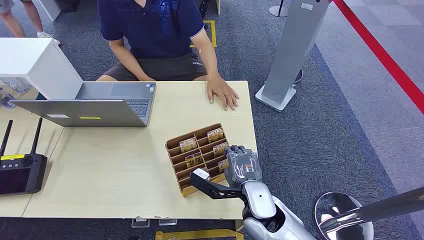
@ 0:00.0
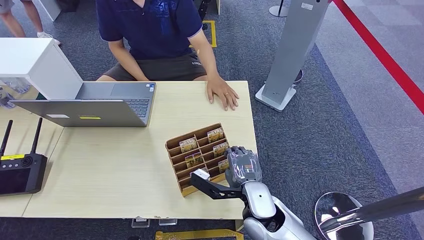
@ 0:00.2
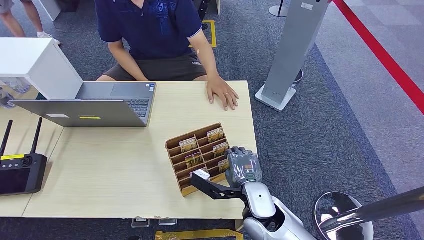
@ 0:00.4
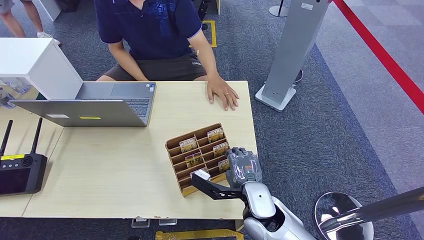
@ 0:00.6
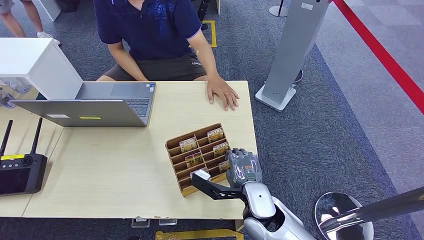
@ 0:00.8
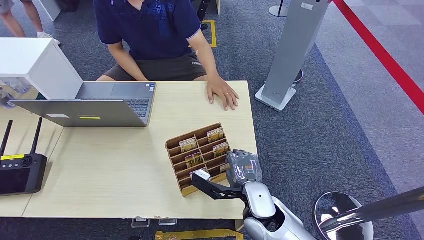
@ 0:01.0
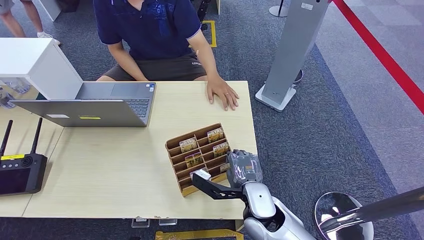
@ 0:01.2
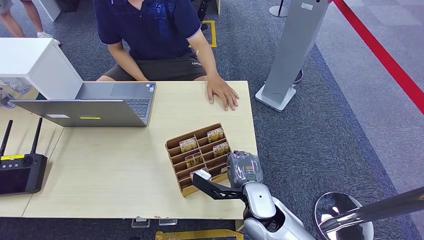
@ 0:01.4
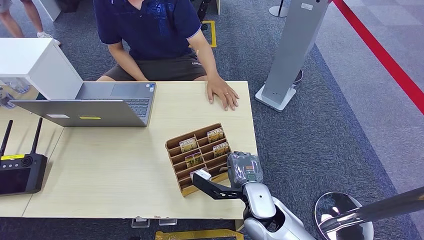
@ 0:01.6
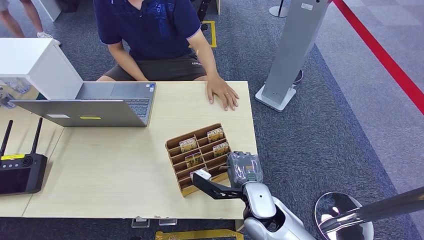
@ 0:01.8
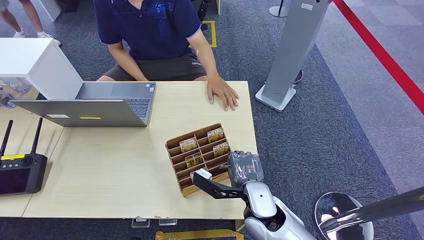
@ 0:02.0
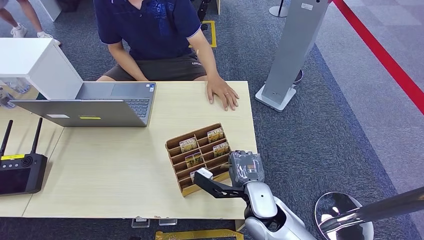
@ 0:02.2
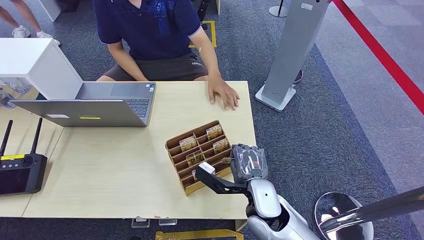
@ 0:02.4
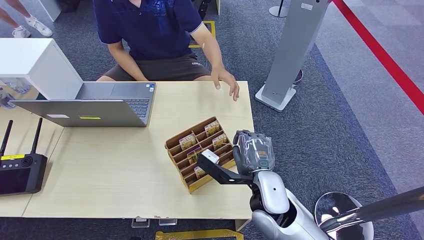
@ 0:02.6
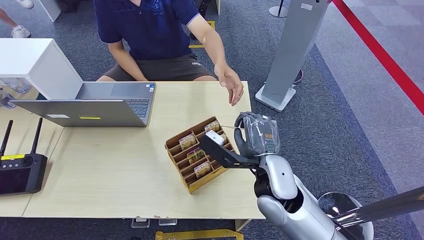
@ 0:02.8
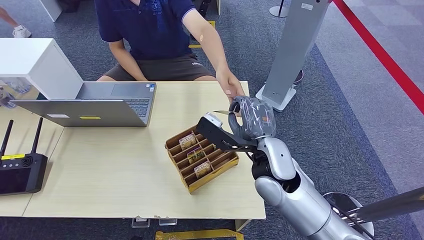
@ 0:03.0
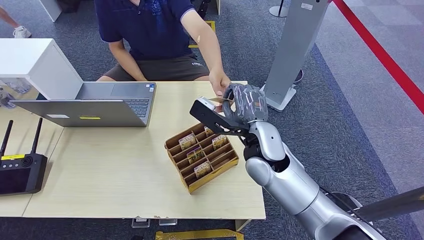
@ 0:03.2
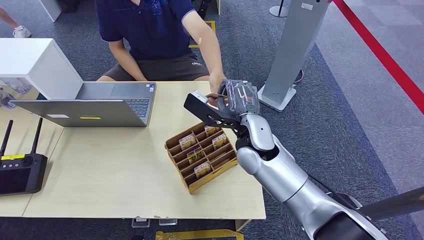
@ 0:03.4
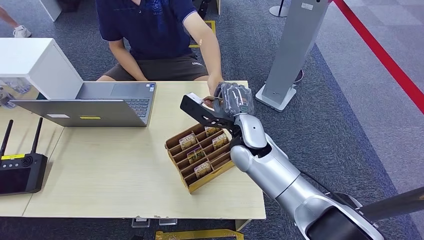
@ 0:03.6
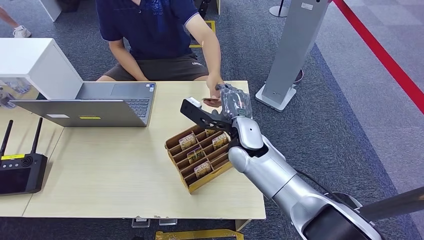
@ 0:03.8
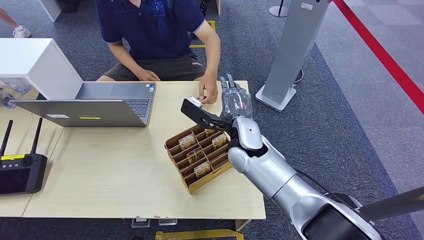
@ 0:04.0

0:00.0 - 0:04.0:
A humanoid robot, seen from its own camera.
Step, 0:00.0 - 0:02.6: Pick up the key card from the card box.
Step, 0:03.0 - 0:04.0: Hand the key card to the target.
0:01.4 - 0:02.6: The right hand goes some 5 cm upward.
0:02.6 - 0:04.0: The right hand goes roughly 15 cm forward and to the left.
